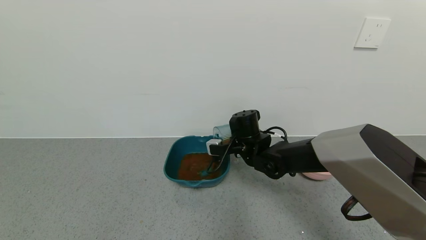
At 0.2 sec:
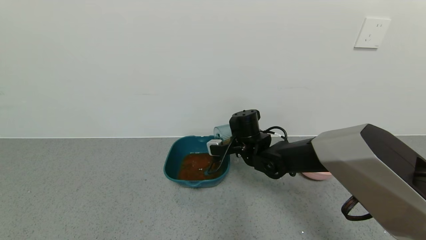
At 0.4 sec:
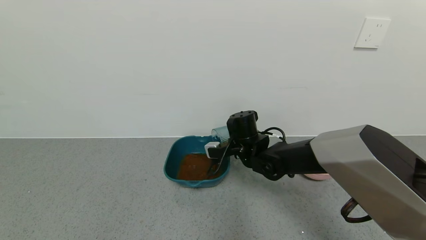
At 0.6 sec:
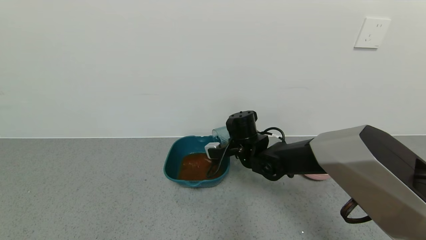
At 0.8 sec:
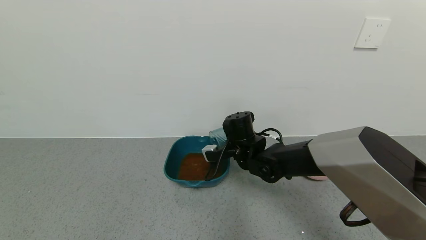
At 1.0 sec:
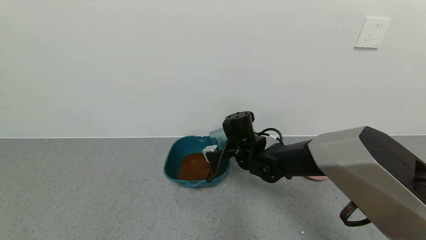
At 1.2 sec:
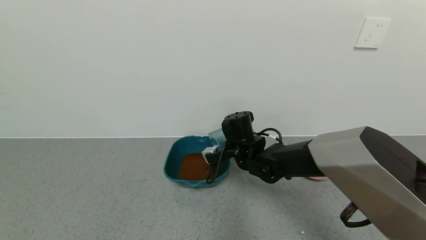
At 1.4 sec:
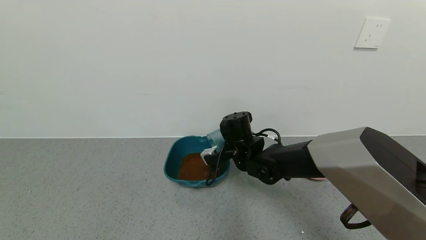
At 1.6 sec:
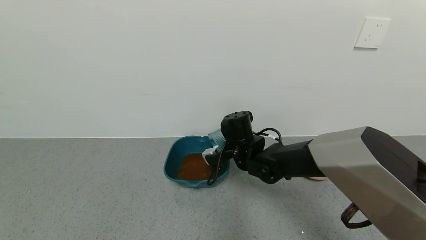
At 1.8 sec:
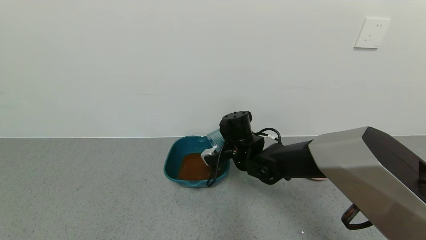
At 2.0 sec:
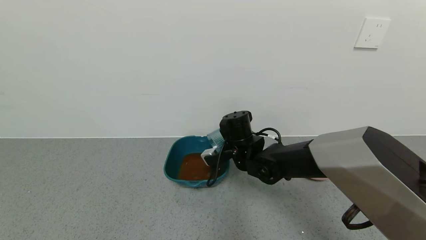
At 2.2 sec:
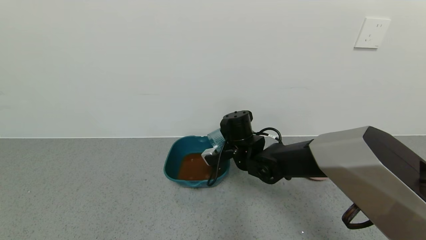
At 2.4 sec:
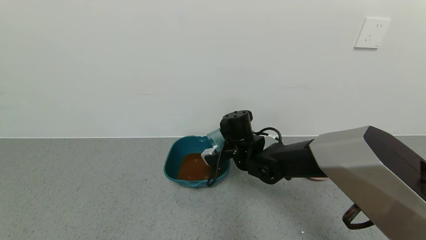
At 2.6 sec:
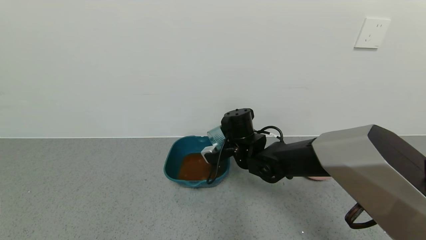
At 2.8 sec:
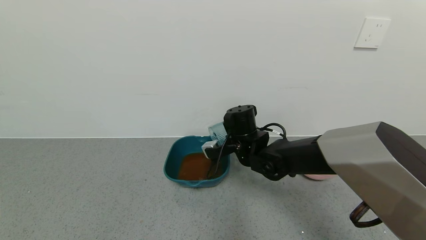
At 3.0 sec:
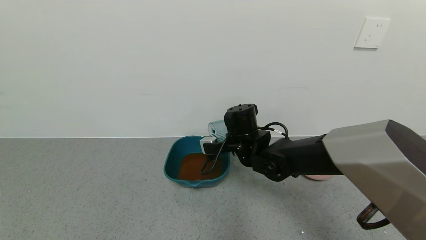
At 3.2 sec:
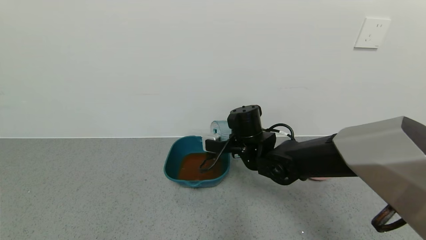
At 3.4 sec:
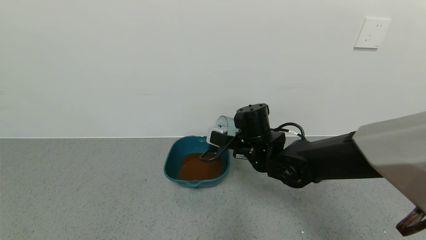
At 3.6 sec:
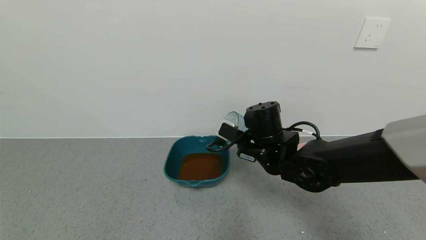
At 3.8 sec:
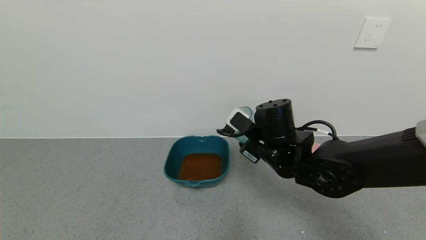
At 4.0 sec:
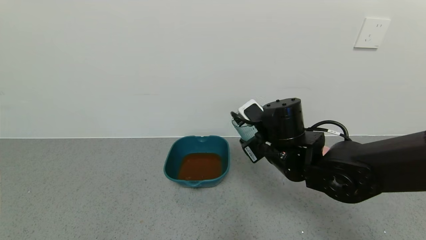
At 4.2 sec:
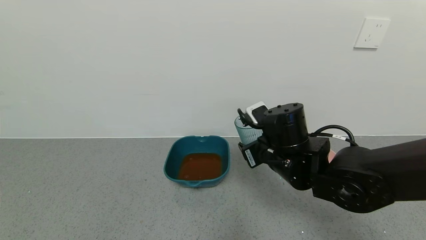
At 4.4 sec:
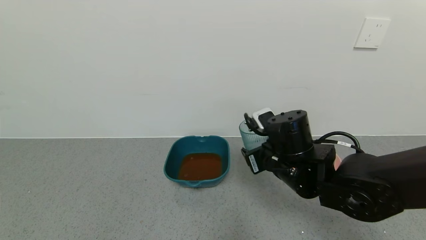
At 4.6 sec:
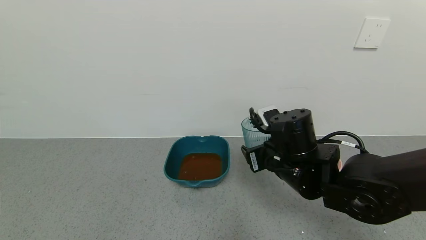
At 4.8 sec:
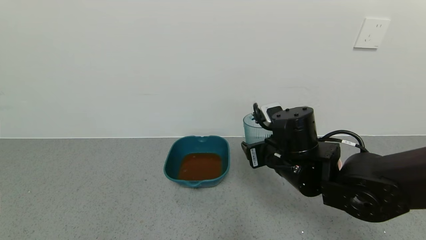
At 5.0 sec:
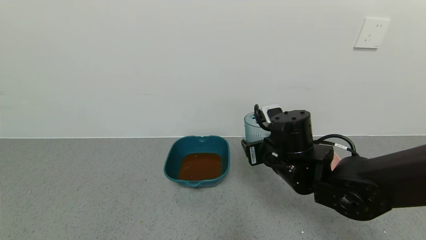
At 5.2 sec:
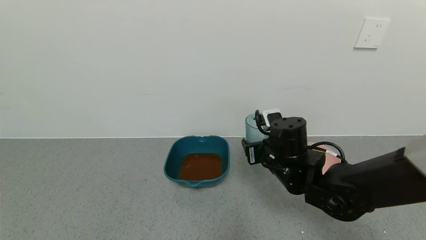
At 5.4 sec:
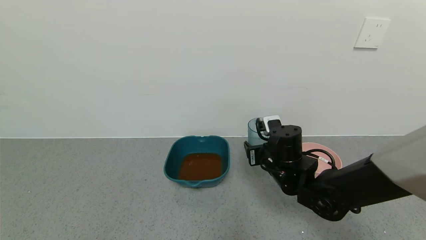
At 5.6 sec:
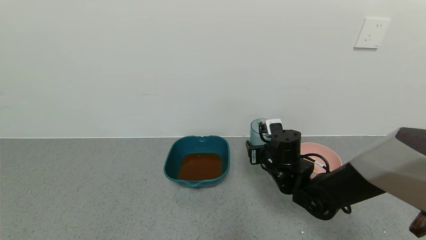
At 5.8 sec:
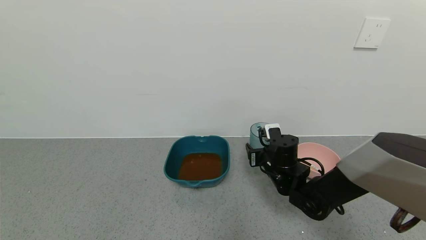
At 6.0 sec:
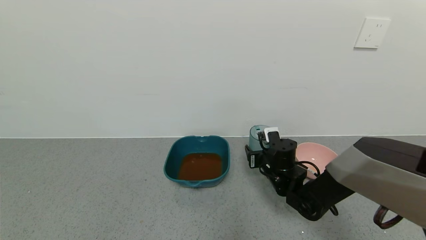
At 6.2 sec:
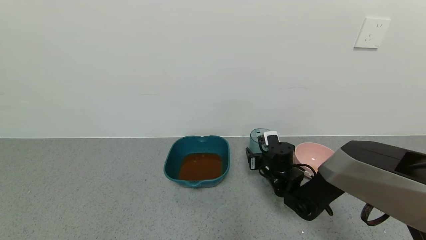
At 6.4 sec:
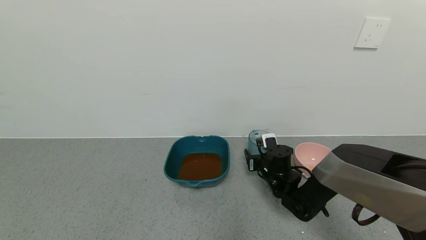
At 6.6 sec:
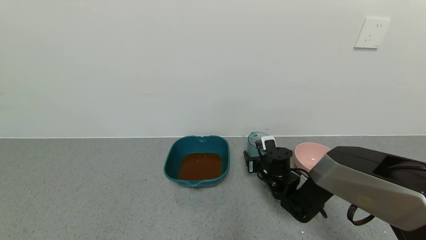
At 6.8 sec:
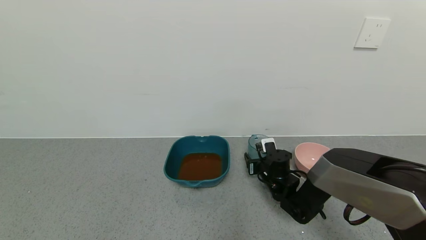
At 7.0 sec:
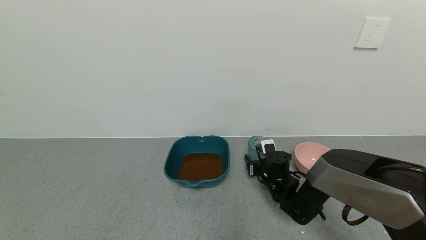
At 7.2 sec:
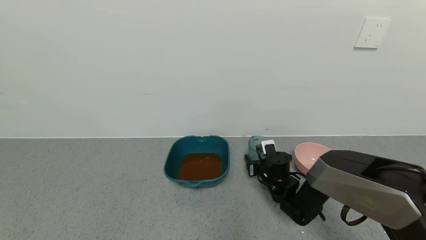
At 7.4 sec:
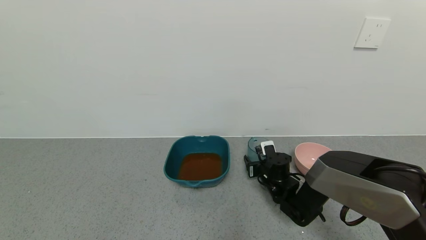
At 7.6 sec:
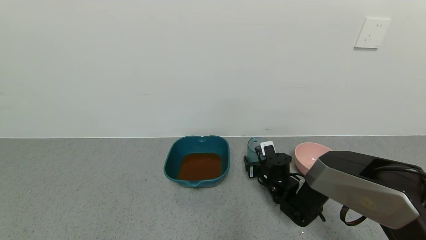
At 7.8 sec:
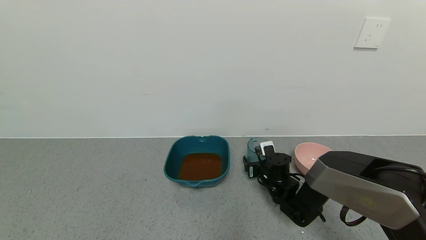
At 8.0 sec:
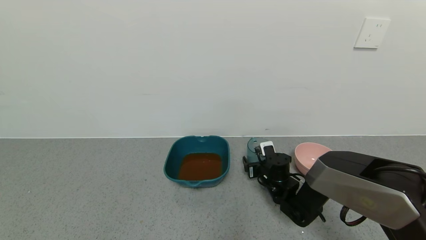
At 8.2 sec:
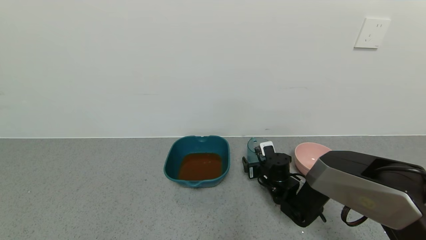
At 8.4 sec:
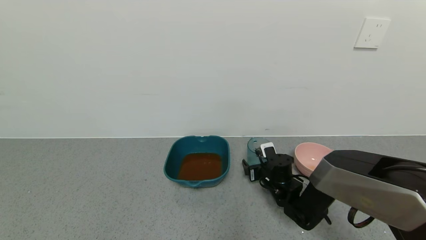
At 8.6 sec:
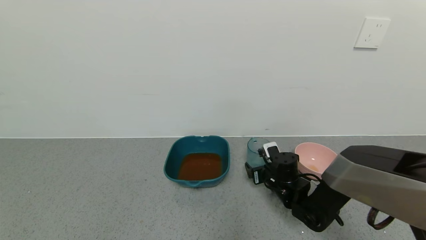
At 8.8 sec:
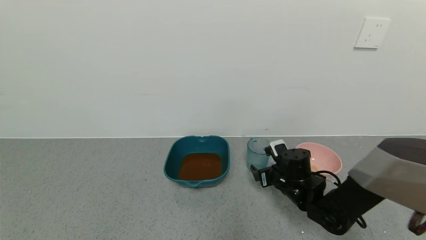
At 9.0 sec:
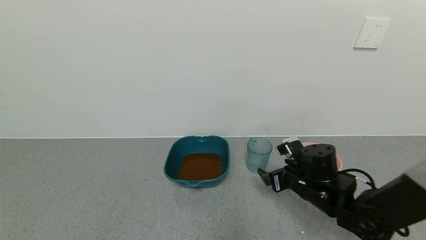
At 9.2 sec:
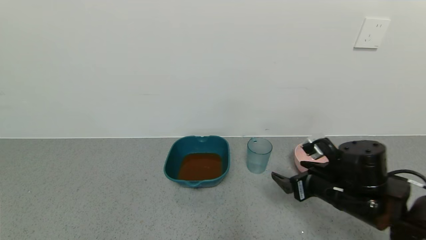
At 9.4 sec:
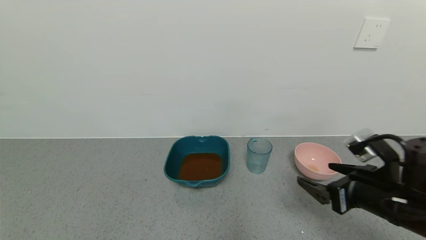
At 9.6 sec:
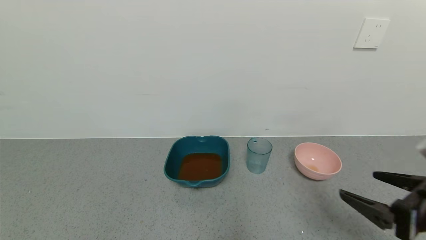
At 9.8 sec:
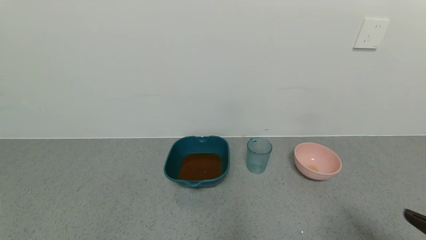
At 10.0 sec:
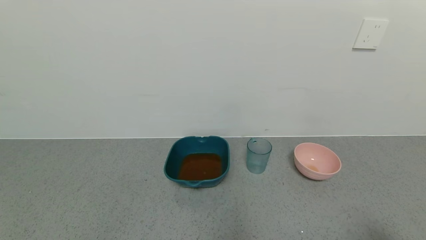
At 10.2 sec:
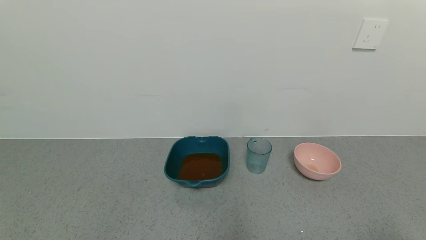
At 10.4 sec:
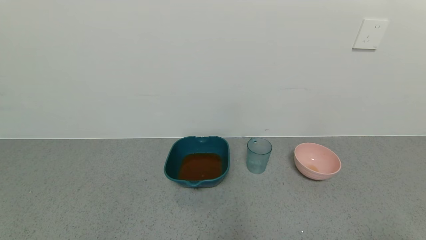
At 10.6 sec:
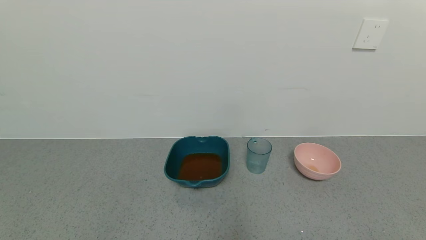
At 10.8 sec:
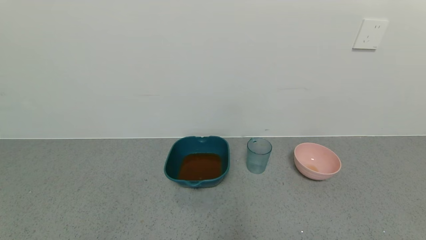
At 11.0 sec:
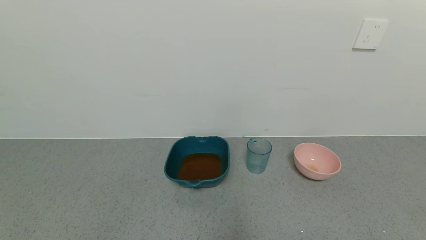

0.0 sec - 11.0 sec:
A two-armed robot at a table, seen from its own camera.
Task of the whole recording: use a gripper to pick up the cup and pour the liquid into a bowl or tray.
Step, 0.0 sec - 7.6 sec: Place blue cup with tea on the table with right gripper.
0.0 sec - 1.6 sec: The grippers make only small movements.
3.2 sec - 4.8 sec: The right gripper shifts approximately 10 cm backward and to the right.
4.8 sec - 6.2 sec: The right gripper travels downward and forward by roughly 15 cm.
6.2 sec - 7.8 sec: The right gripper opens.
7.8 sec - 9.4 sec: The right gripper heads backward, upward and to the right, covering some 30 cm, and opens its fingers.
9.4 sec - 11.0 sec: The right gripper moves backward, roughly 25 cm.
